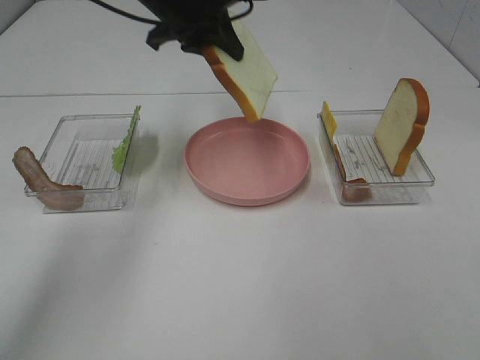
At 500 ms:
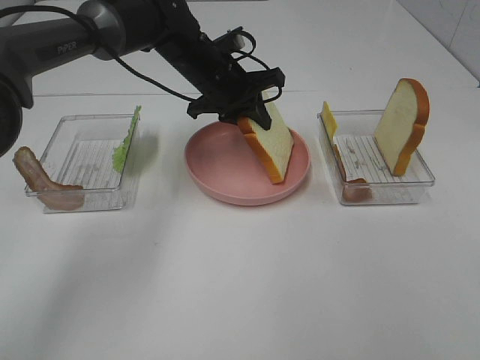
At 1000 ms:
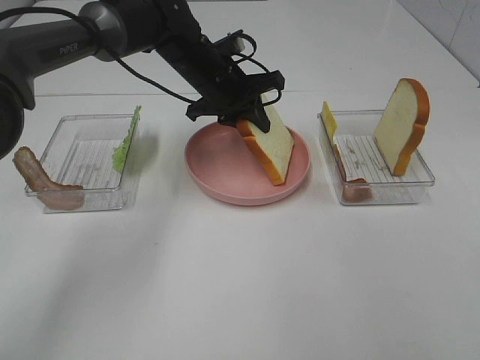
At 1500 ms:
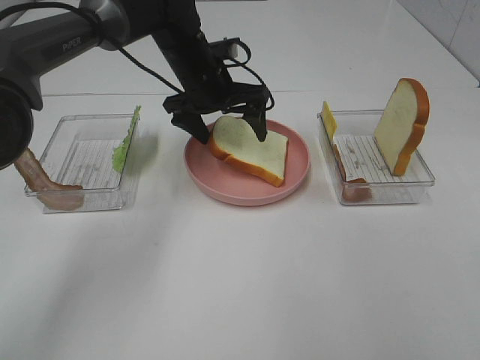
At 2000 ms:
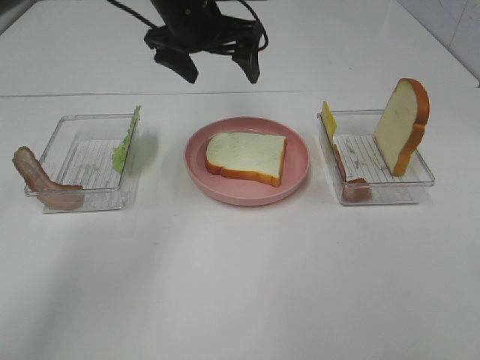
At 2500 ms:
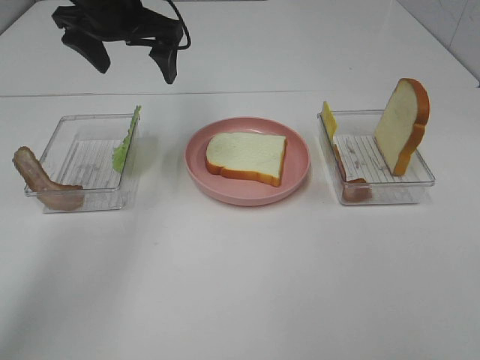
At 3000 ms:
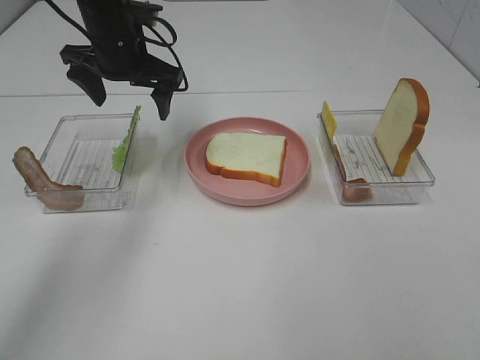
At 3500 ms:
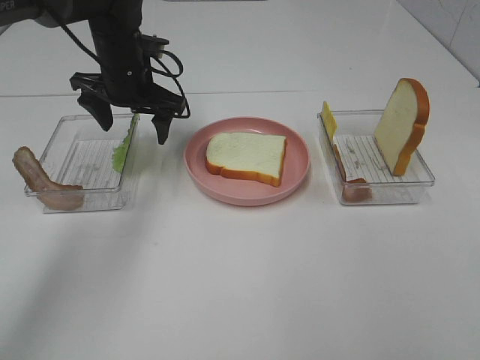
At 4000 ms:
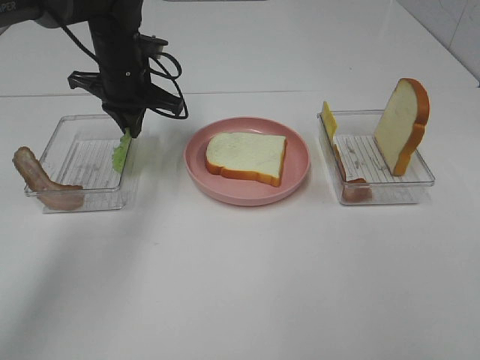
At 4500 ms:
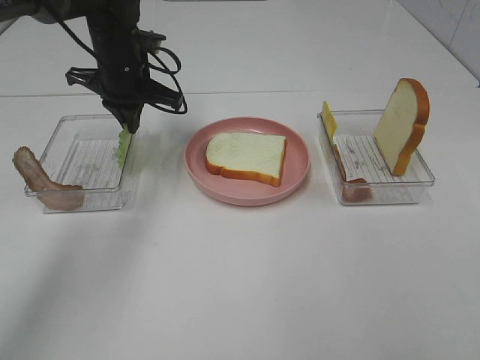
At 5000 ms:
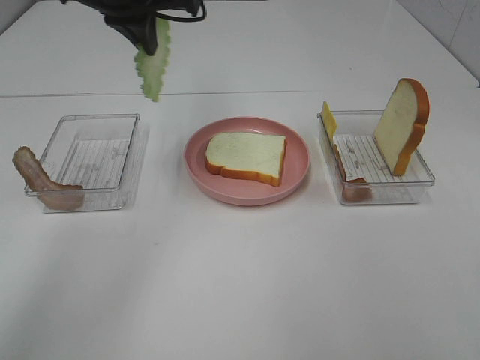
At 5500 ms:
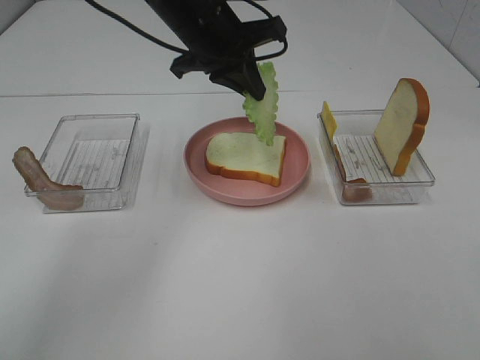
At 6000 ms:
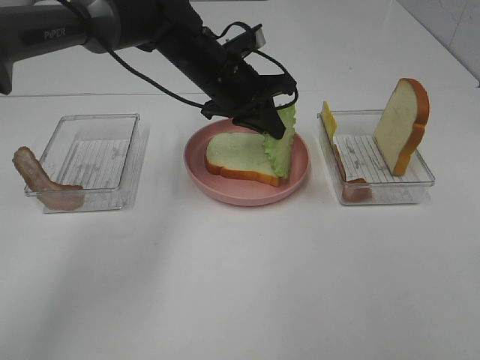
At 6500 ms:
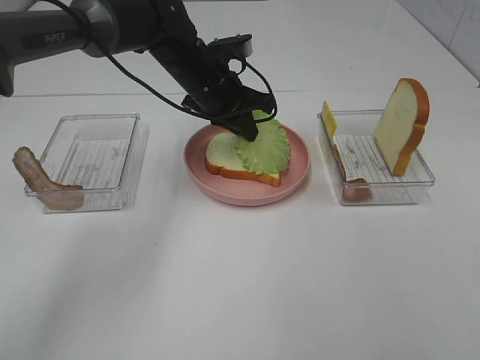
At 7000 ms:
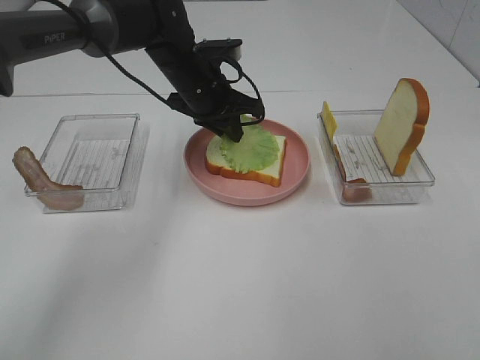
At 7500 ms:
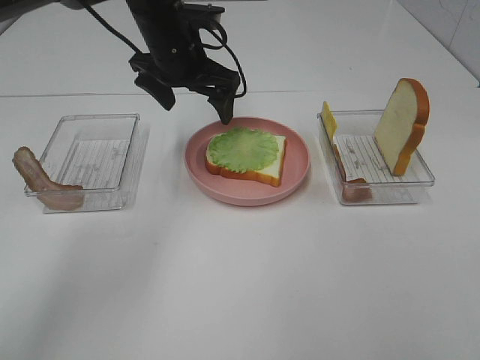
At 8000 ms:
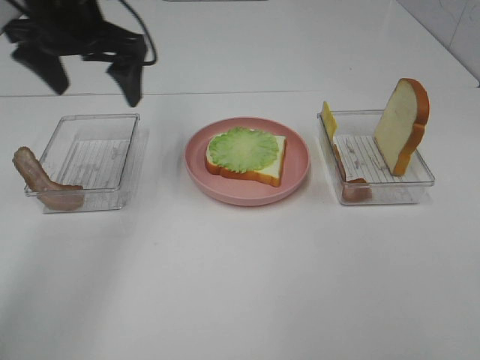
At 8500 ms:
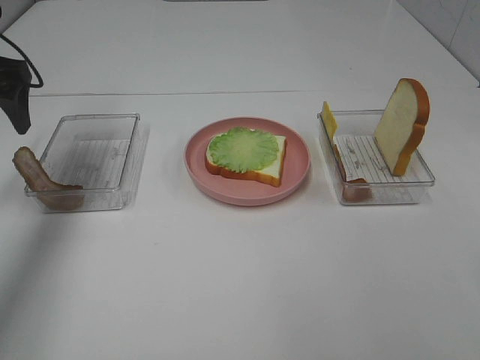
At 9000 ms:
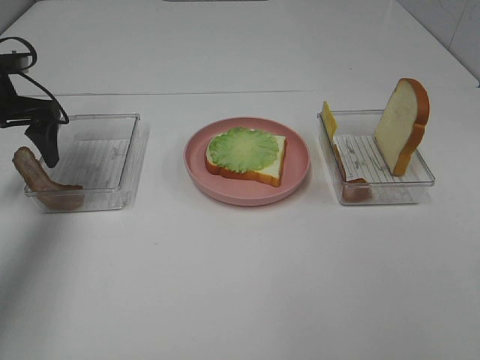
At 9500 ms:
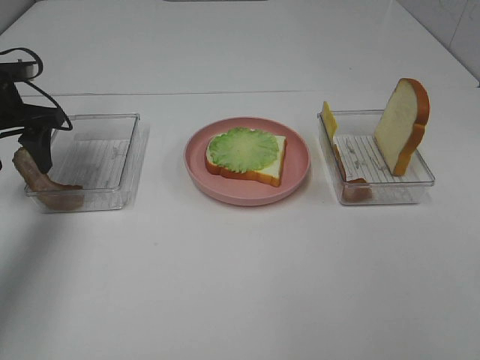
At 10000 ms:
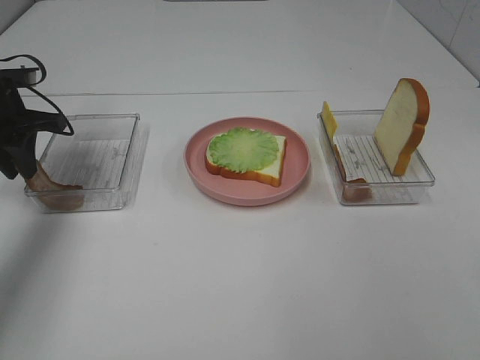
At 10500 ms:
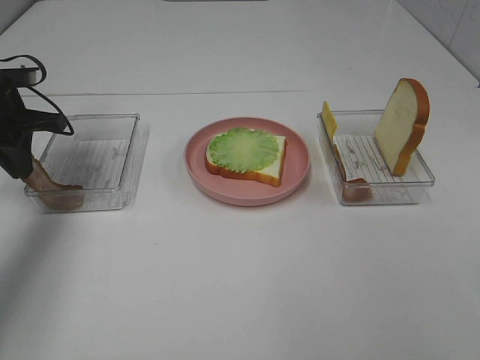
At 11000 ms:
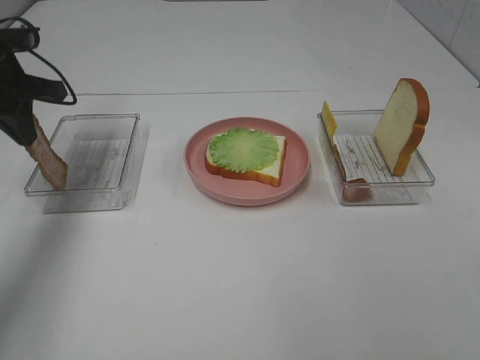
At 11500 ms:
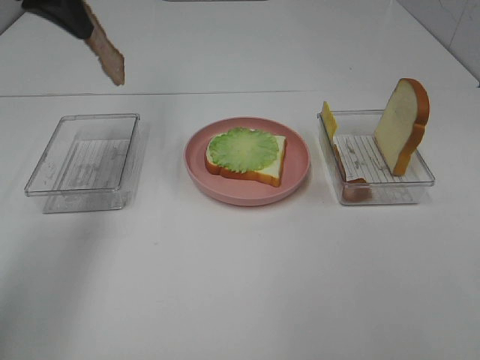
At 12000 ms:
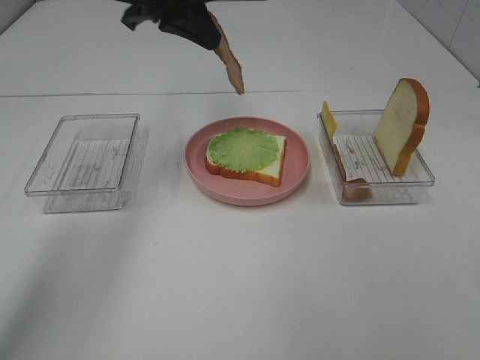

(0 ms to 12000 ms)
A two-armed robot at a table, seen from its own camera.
Task of the whole recording: Make sandwiches.
Step, 2000 ms - 4000 ms: Left hand:grab the lettuce slice.
Step, 4500 ms - 7000 ms: Left hand:place the lettuce slice on the bread slice.
Step, 7500 ms - 10500 ms: Left hand:grab the bacon.
0 ms - 2000 ms: The left gripper travels downward and back again, about 10 cm each way, and opens its fingers.
2000 ms - 4000 ms: The left gripper heads downward and to the left, covering roughly 10 cm, and closes up.
4000 ms - 6000 ms: The left gripper shifts approximately 10 cm to the right, and goes upward and returns, approximately 15 cm each way.
6000 ms - 8000 ms: The left gripper is displaced to the left and upward by approximately 20 cm, and opens up.
8000 ms - 10000 ms: The left gripper goes approximately 15 cm to the left and downward, and closes its fingers.
10000 ms - 12000 ms: The left gripper goes roughly 25 cm to the right and upward.

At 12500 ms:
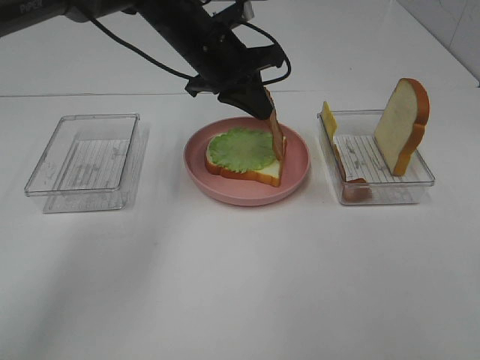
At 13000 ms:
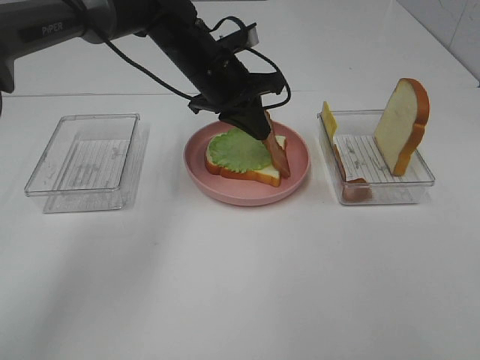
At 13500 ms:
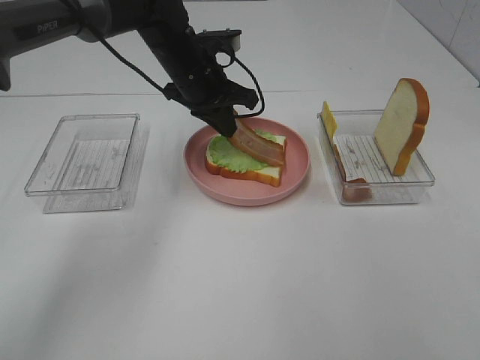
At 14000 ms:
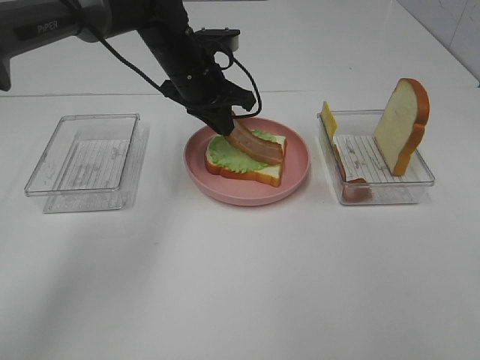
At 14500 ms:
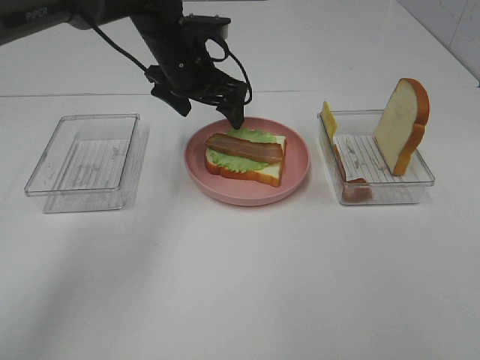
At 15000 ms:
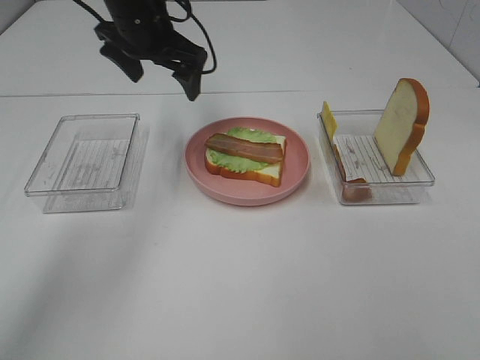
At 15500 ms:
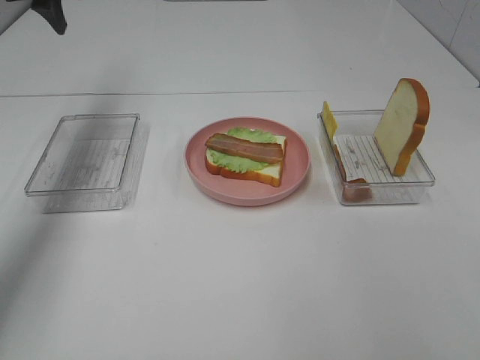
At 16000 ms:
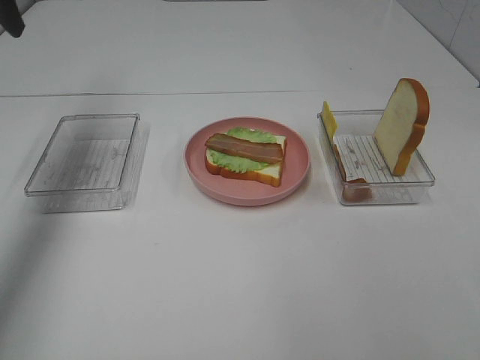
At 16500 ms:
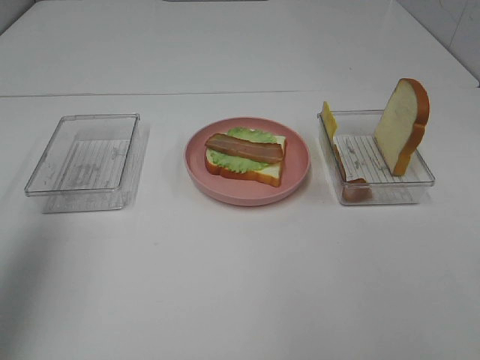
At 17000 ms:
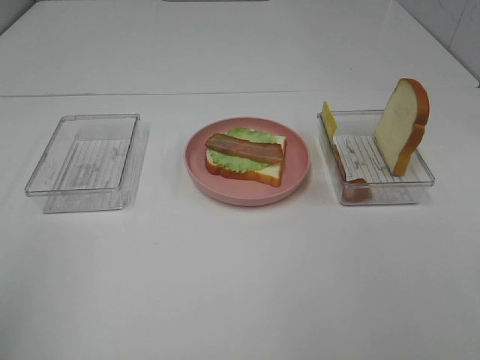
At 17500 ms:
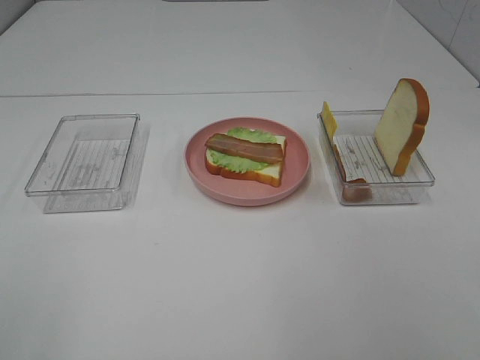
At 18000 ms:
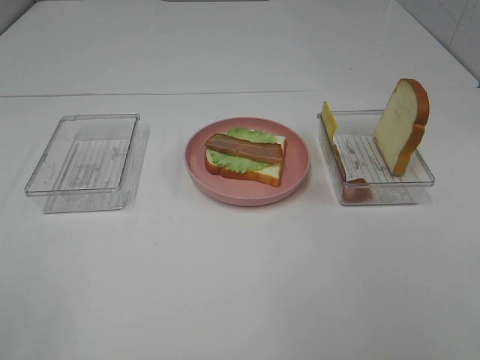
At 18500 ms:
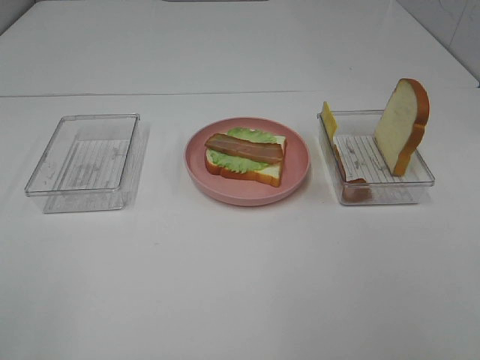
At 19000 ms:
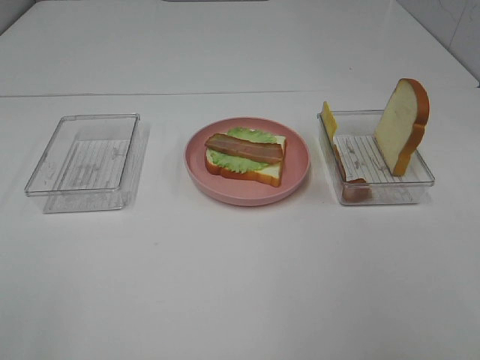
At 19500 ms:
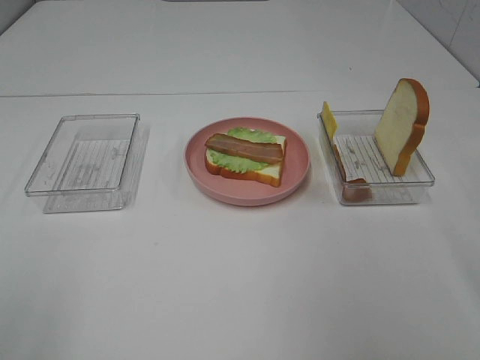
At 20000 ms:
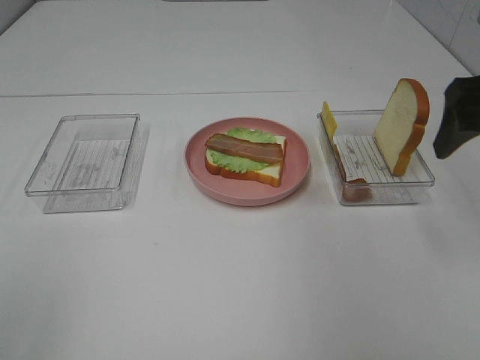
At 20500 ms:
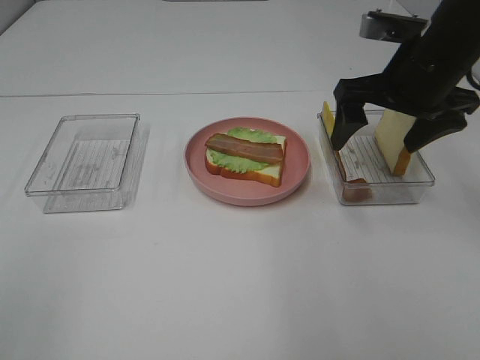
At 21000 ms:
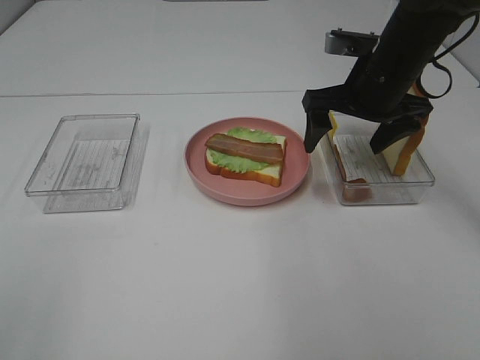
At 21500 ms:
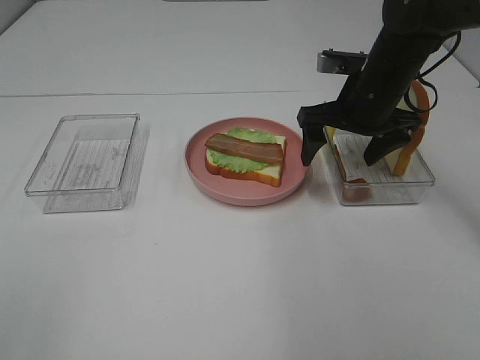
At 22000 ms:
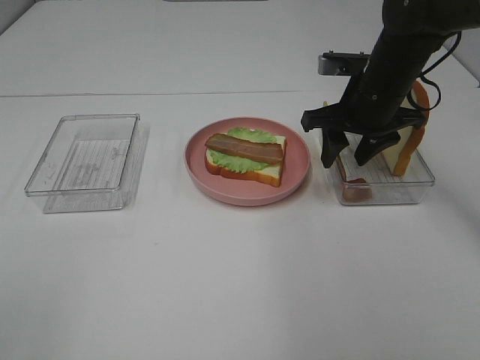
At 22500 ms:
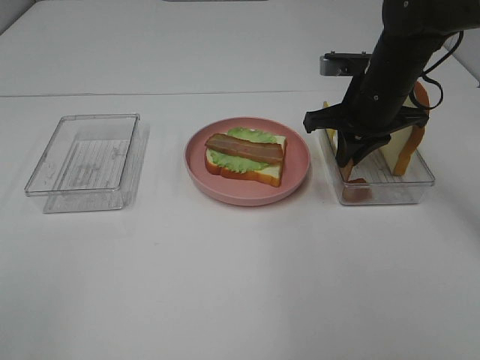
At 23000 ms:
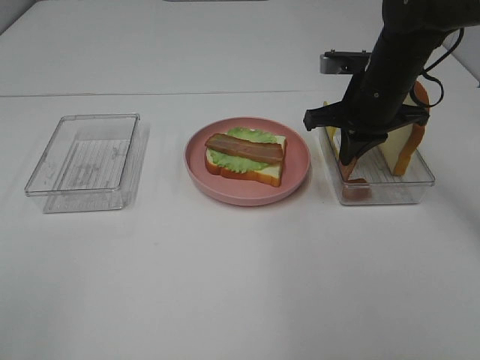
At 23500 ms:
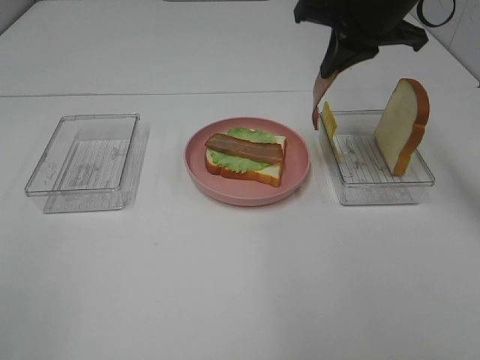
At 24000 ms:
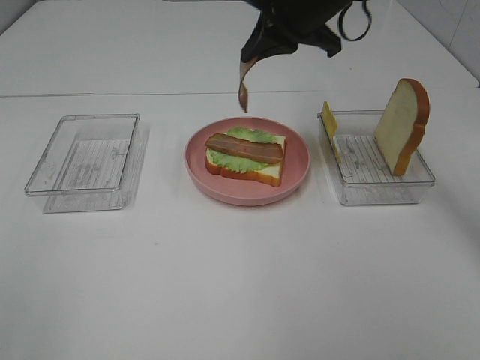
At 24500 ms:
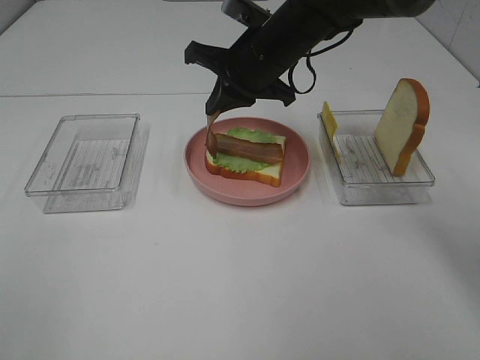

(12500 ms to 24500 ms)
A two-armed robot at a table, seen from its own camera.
Task of the whole recording: Make sandwiches.
Step, 14500 ms - 23000 ms: Right hand:grab the bacon.
12500 ms - 14500 ms: The left gripper opens.
14500 ms - 16500 ms: The left gripper shifts approximately 40 cm backward, to the left and upward.
16500 ms - 18500 ms: The left gripper shifts about 20 cm backward.
18500 ms - 20500 ms: The right gripper travels forward by roughly 35 cm.
20500 ms - 22500 ms: The right gripper travels downward and forward by roughly 10 cm, and closes up.
22500 ms - 24500 ms: The right gripper travels to the left by some 15 cm.

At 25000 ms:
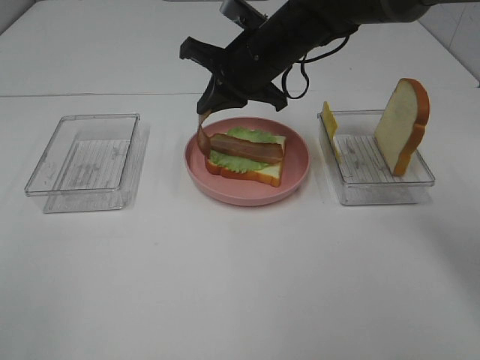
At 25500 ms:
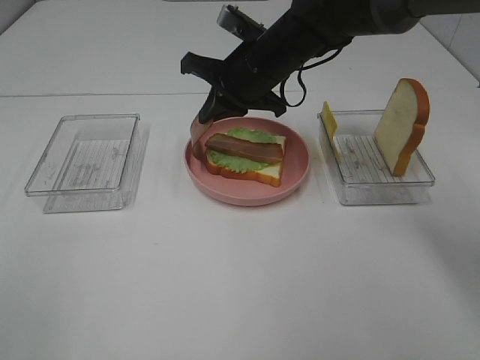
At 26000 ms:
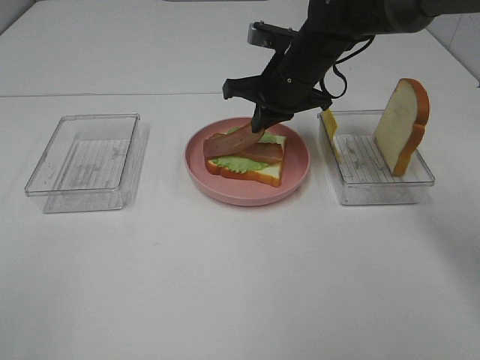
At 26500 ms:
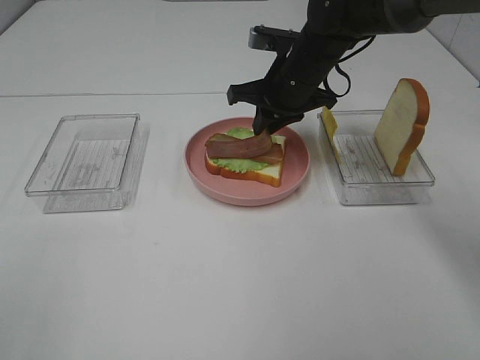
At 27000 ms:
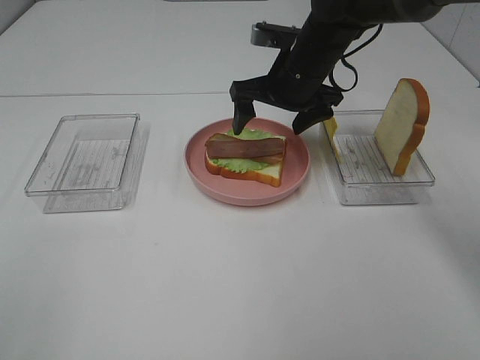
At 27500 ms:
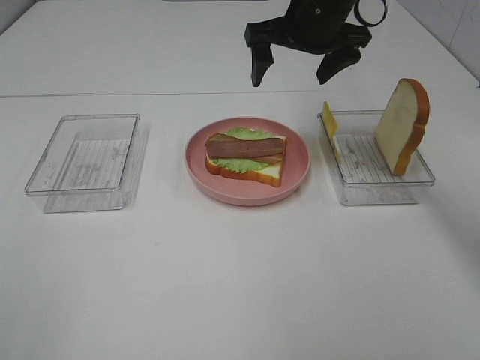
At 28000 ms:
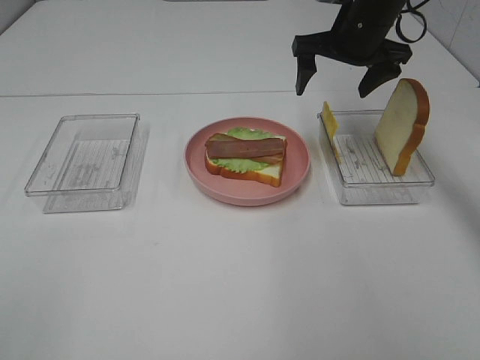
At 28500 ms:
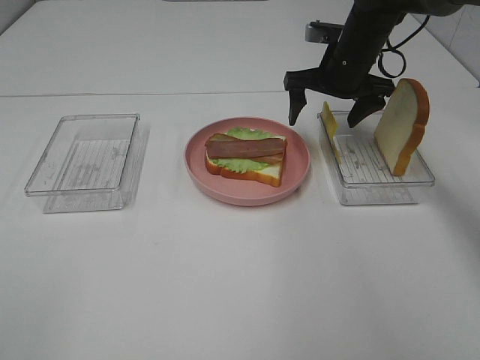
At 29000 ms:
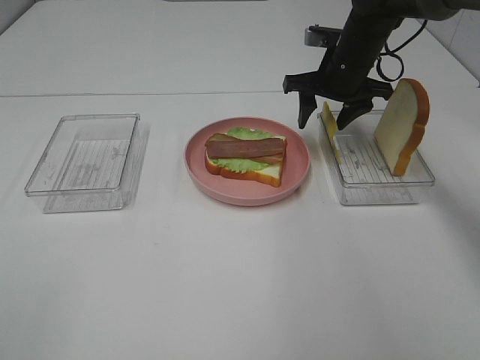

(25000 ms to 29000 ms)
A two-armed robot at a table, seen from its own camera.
Task of the whole recording: Make sandwiches.
25000 ms - 27000 ms: The right gripper moves approximately 5 cm, and opens.
27000 ms - 29000 ms: The right gripper heads to the right and forward, covering roughly 10 cm, and reaches some 5 cm upward, then returns.
